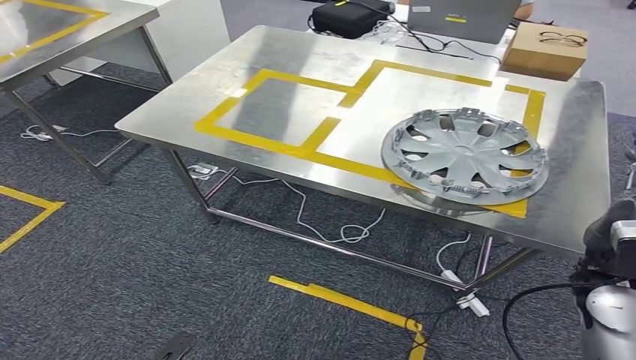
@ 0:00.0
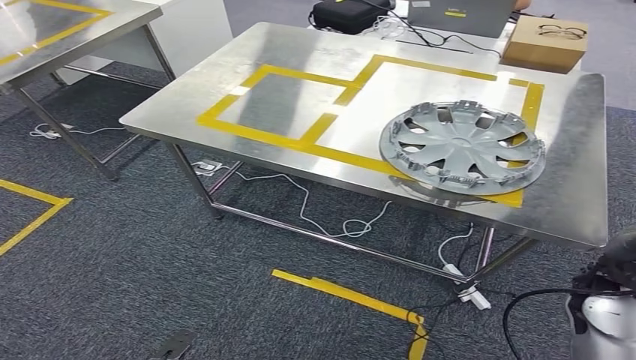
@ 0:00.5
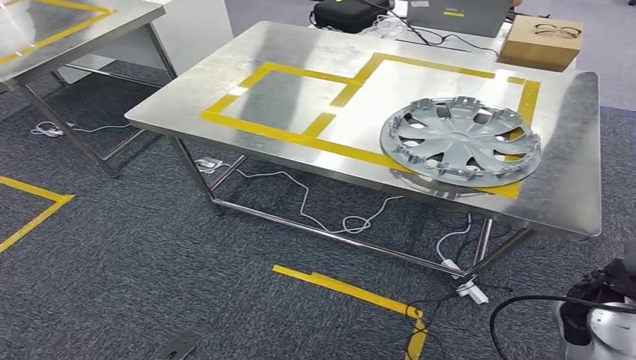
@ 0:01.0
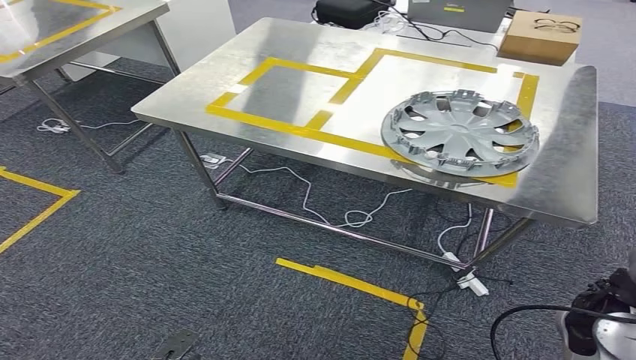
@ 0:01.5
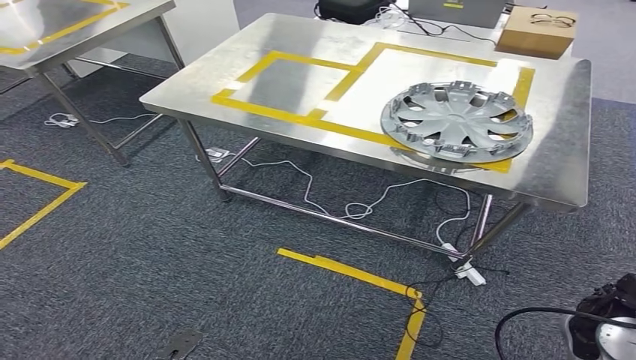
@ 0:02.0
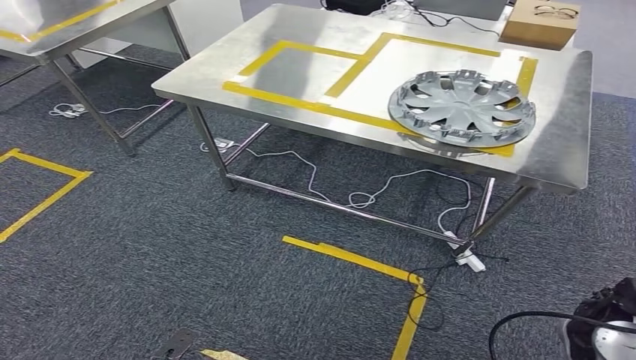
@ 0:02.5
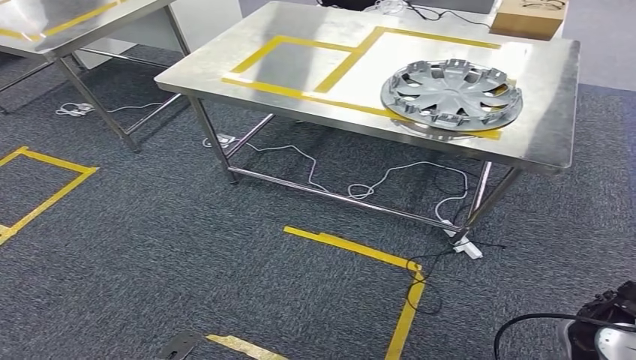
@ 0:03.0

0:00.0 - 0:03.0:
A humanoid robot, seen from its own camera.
Step, 0:00.5 - 0:03.0: Return to the initial position at the workbench.
